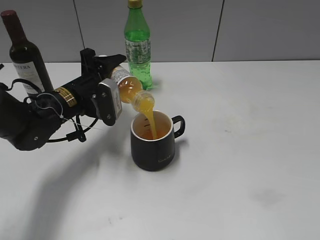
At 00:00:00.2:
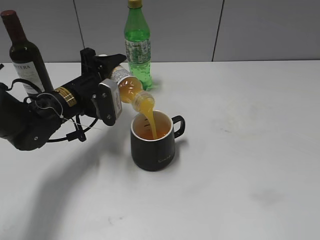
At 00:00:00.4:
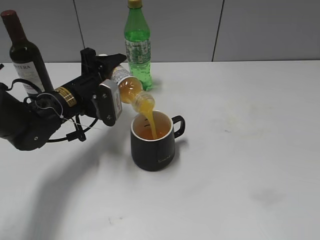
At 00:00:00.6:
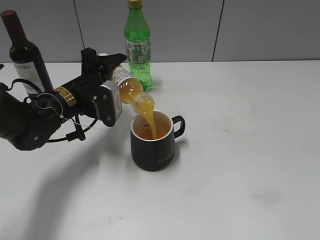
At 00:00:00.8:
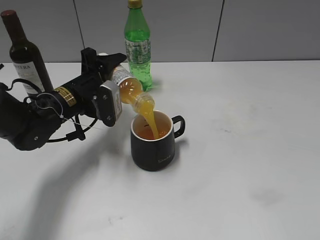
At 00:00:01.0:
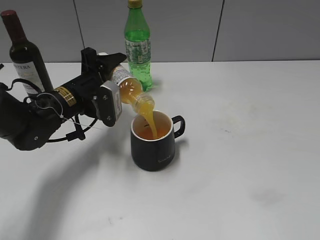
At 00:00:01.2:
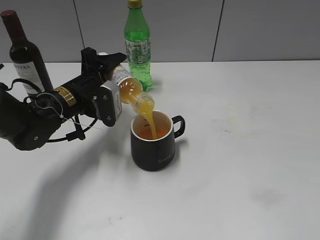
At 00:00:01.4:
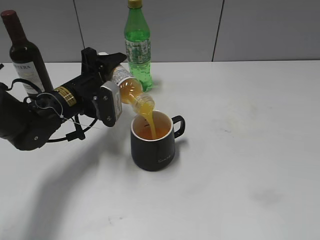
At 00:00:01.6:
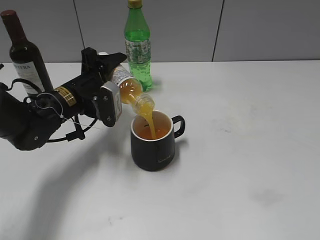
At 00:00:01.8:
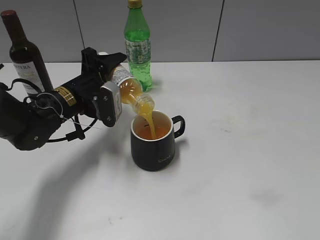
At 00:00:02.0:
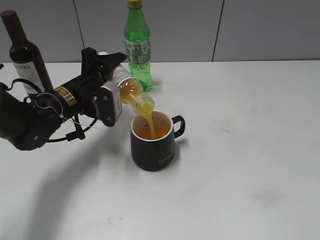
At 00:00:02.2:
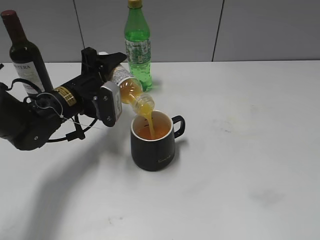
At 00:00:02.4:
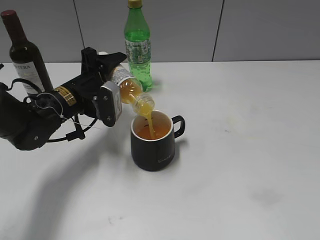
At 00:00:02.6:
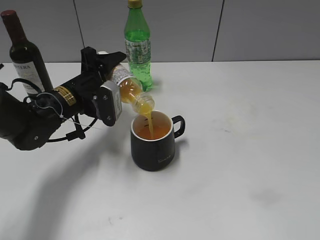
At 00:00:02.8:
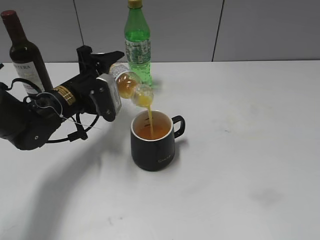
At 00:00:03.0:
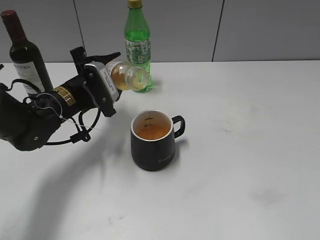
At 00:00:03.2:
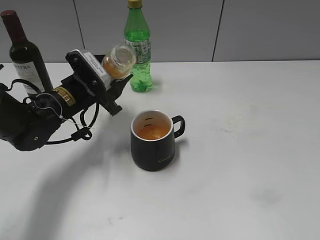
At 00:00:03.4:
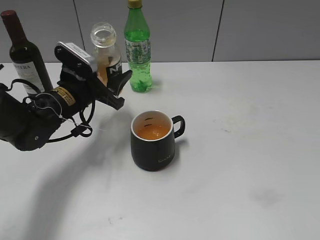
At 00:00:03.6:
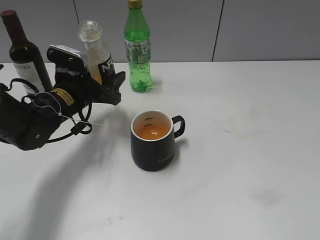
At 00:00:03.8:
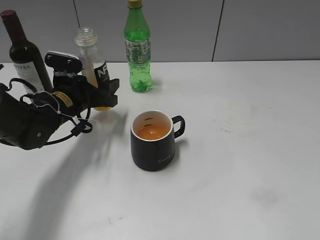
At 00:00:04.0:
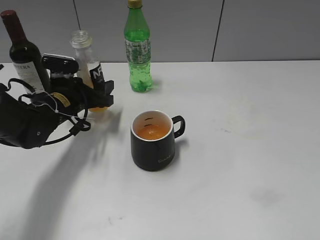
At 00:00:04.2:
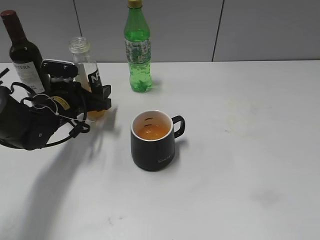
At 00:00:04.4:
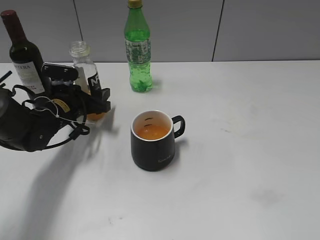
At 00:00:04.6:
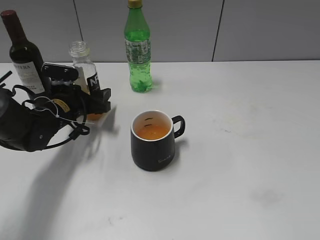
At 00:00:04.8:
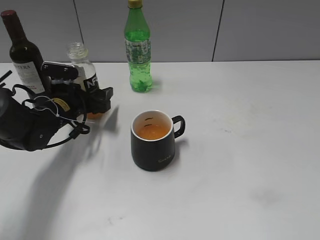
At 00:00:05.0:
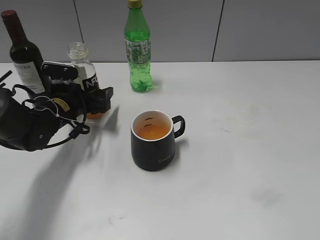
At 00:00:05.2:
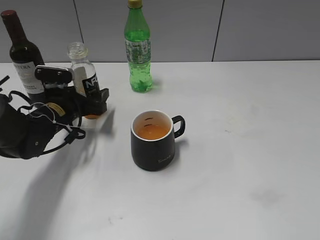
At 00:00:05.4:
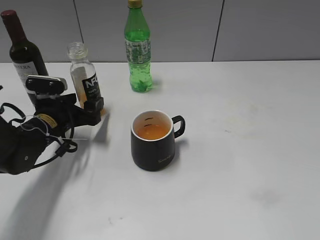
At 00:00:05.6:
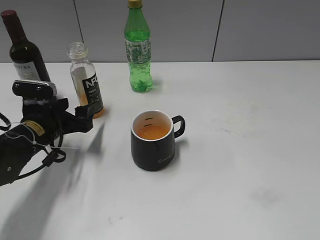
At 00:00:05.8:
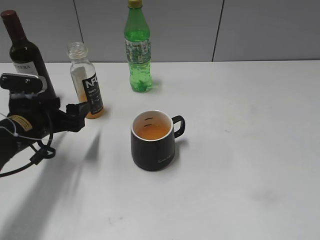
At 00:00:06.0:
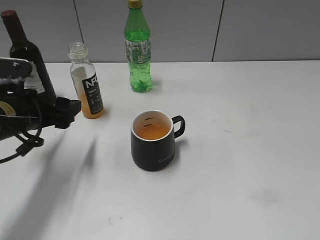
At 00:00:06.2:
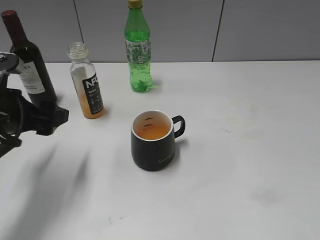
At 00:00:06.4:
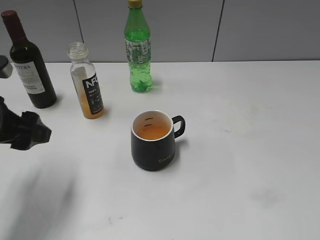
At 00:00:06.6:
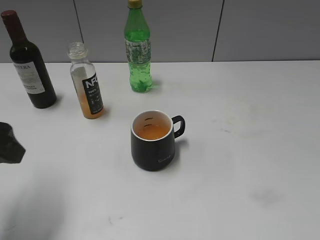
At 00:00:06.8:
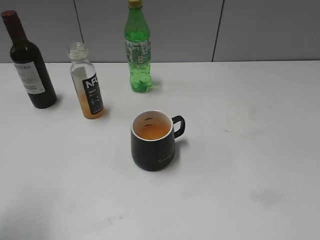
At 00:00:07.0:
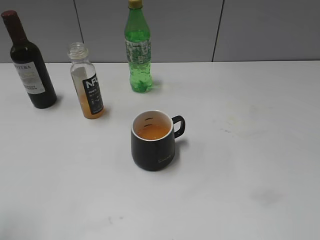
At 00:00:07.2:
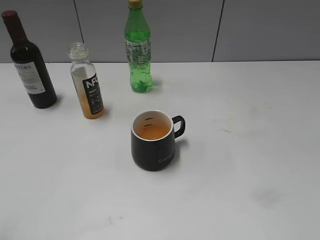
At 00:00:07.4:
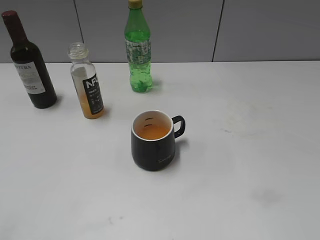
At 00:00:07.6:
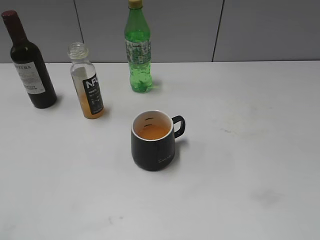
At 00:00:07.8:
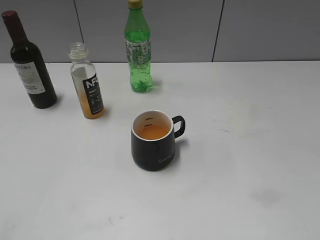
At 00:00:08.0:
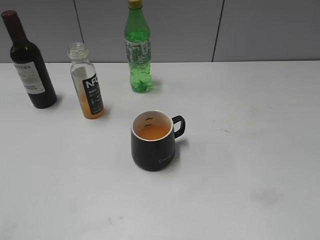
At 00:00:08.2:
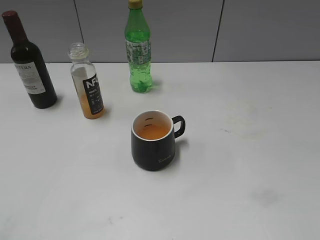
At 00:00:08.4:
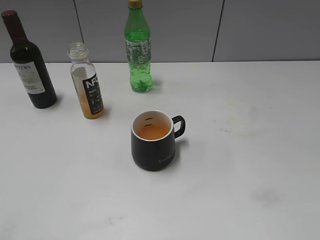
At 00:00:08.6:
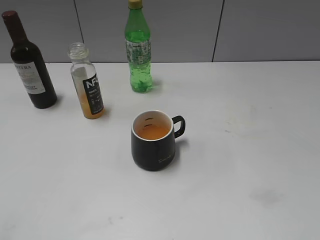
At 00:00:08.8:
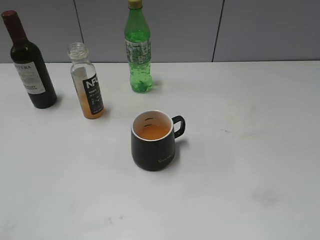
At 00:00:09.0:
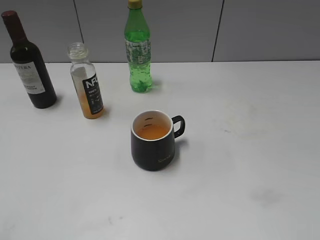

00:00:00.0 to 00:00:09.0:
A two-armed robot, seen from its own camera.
Step, 00:00:00.0 to 00:00:03.0: Pour the orange juice from bottle to cup with left gripper.
Step, 00:00:03.2 to 00:00:05.0: Place the orange juice bottle on the table with left gripper.
00:00:00.0 to 00:00:01.6: The grippers move only a little.
00:00:03.0 to 00:00:04.4: The left gripper moves downward, some 5 cm.
00:00:04.4 to 00:00:06.0: The left gripper is displaced backward and upward by some 10 cm, and opens its fingers.
00:00:06.0 to 00:00:07.6: The left gripper goes some 25 cm backward and upward.
